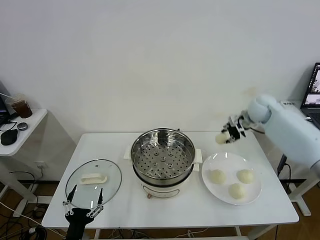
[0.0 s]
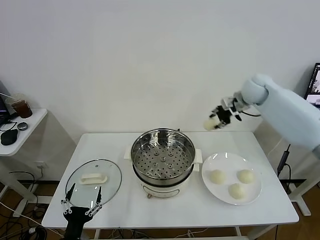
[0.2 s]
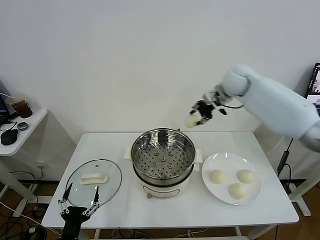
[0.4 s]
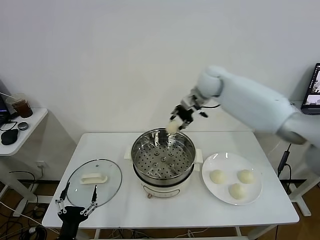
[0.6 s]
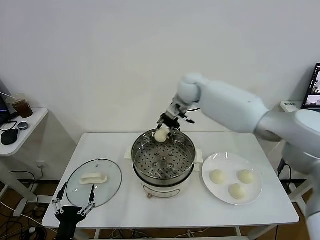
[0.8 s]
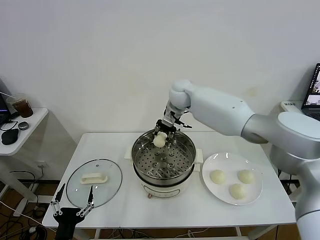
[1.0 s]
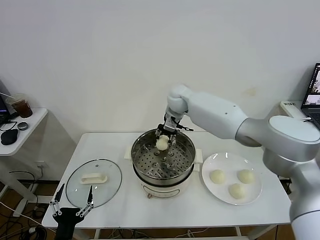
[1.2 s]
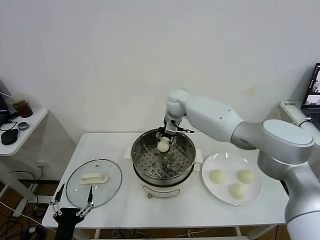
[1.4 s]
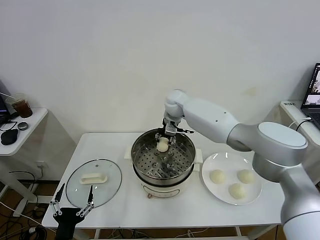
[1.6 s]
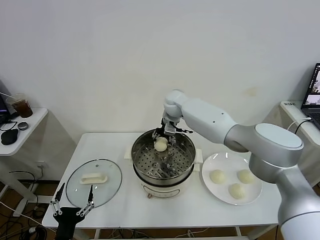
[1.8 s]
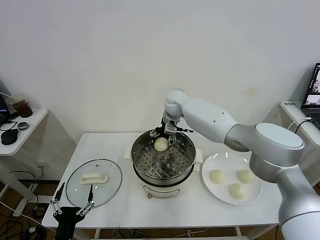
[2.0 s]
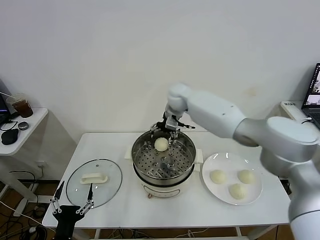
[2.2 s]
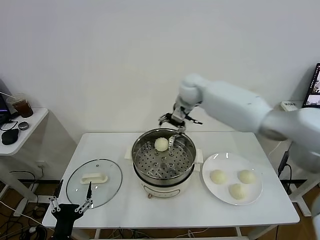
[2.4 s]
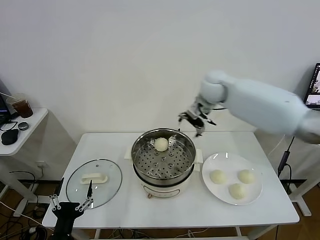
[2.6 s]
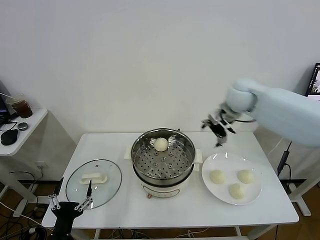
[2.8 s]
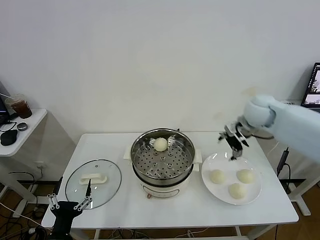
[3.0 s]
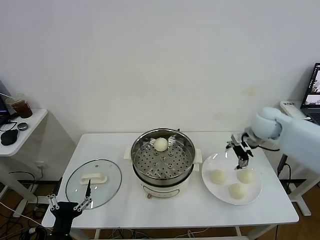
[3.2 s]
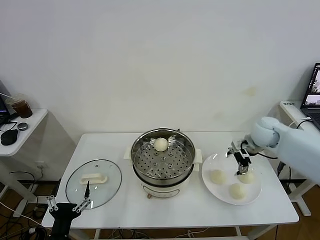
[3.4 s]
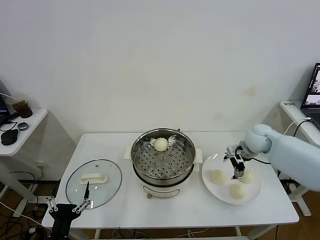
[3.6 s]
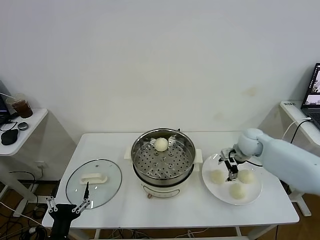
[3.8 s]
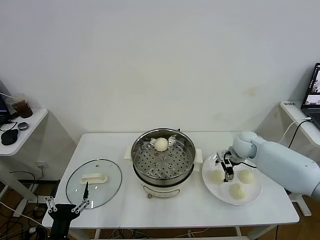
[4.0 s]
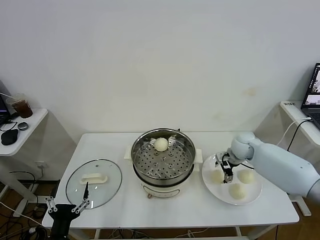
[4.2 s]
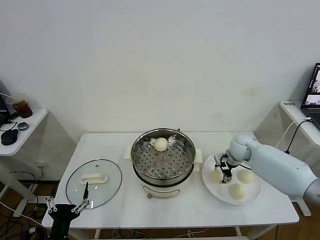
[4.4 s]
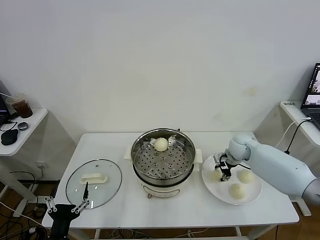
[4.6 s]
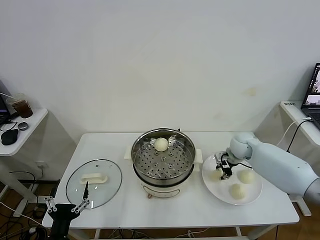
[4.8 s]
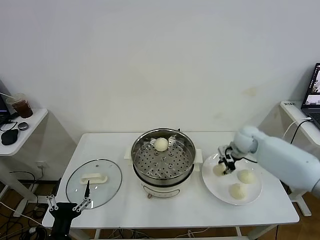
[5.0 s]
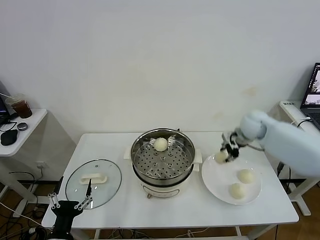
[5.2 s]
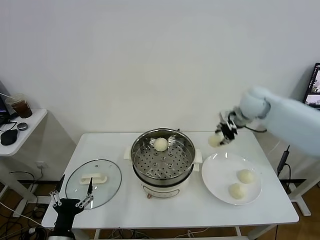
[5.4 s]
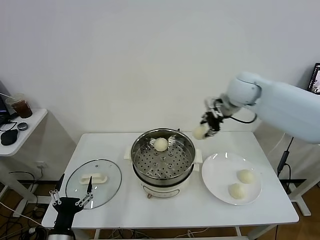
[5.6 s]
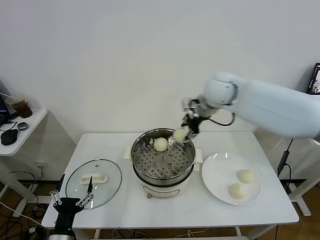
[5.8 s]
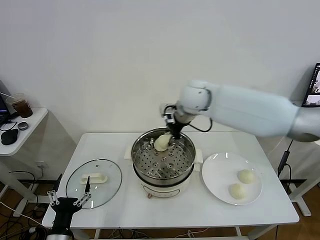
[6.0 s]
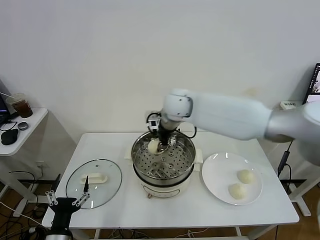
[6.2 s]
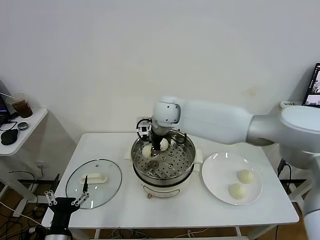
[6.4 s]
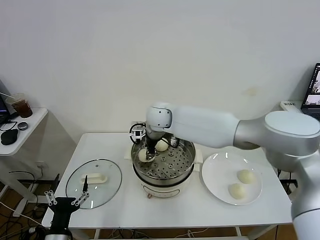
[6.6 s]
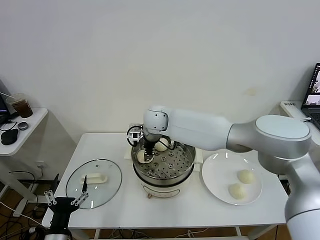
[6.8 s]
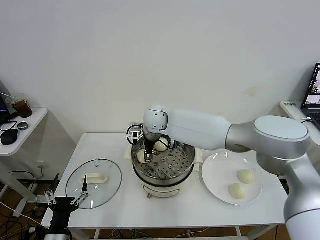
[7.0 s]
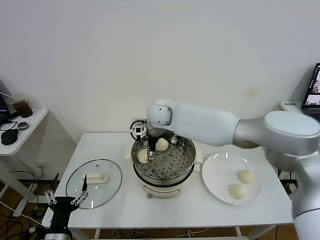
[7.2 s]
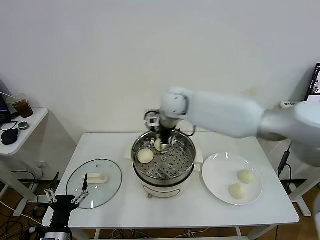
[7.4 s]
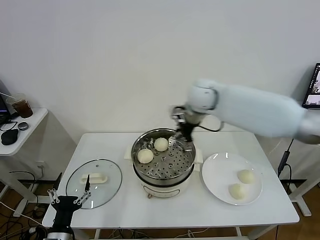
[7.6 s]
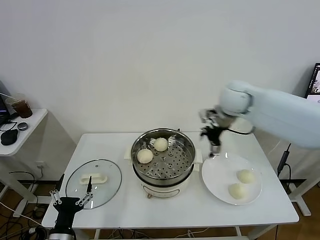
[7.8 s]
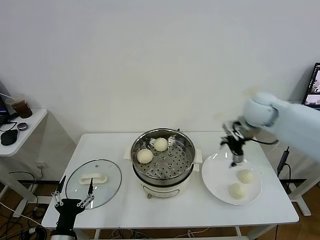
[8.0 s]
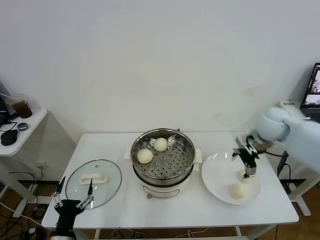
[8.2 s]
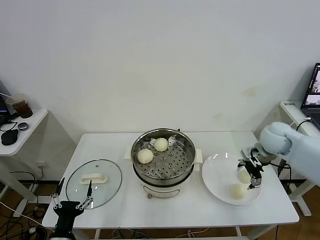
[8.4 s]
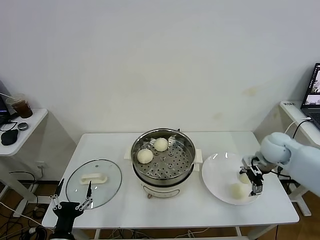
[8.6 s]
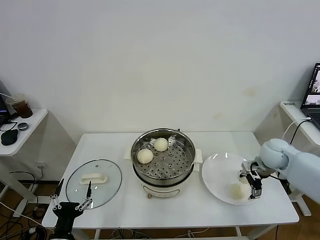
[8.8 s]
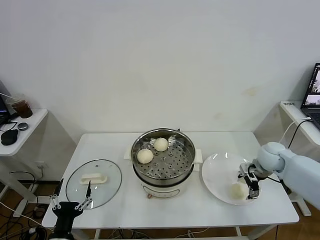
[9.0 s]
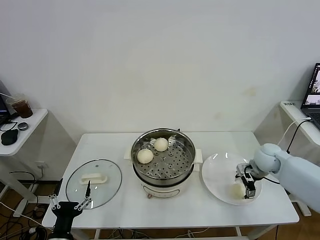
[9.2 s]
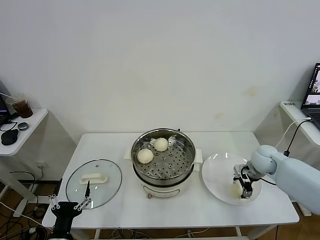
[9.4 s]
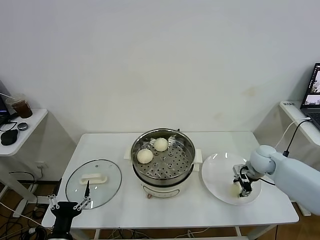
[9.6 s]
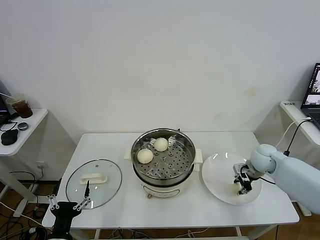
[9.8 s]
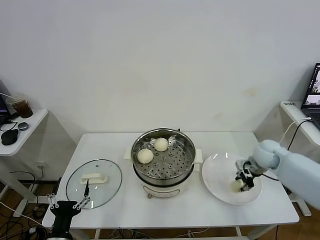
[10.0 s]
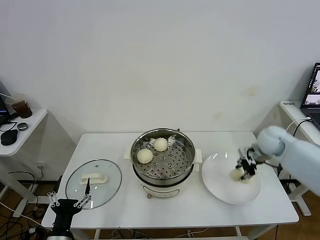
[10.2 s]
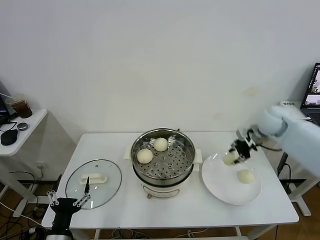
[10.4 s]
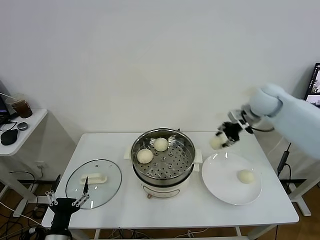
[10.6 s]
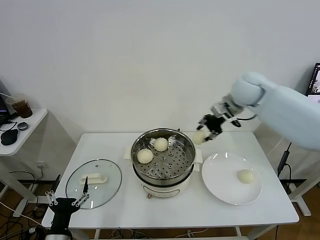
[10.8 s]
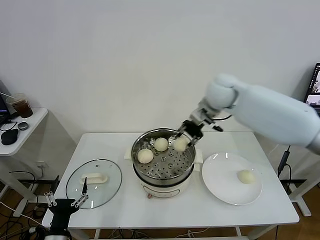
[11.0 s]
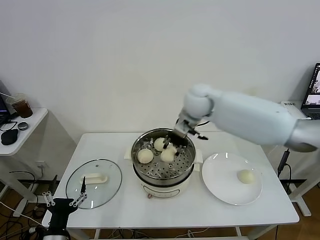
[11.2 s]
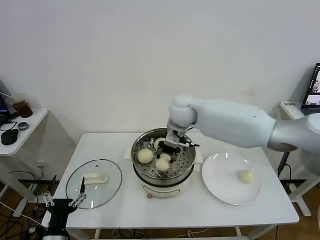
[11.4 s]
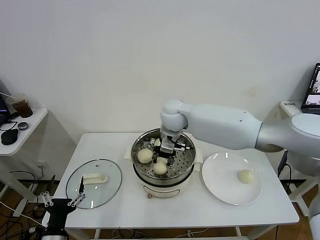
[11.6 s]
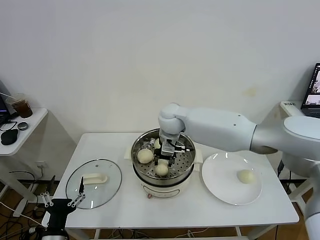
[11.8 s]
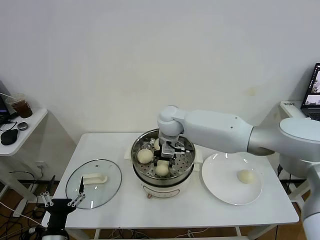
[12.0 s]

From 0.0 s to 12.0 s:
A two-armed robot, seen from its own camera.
Task of the whole recording: take steamed baozi put them in steamer.
Step, from 0.0 s to 2.2 s: Place the baozi on the steamer with right gripper.
Step, from 2.4 s to 4.6 s: Grasp the baozi in the plate with right gripper.
Step, from 4.8 s to 7.0 s: Place the baozi on the steamer with right gripper.
Step, from 7.4 s to 9.6 s: Grasp the baozi in the plate with right gripper.
From 0.0 s to 1.6 s: The right gripper shifts about 30 cm to the left.
From 1.6 s to 3.0 s: The right gripper heads to the right and backward, covering approximately 30 cm, and opens its fingers.
From 3.0 s to 4.4 s: The right gripper moves downward, approximately 15 cm.
From 4.4 s to 6.0 s: The right gripper shifts about 30 cm upward and to the left, and closes up.
From 6.0 s to 7.6 s: The right gripper reaches roughly 10 cm to the left, then returns, and opens its fingers.
From 7.6 s to 9.0 s: The right gripper shifts roughly 30 cm to the right and downward.
From 9.0 s to 10.4 s: The right gripper moves upward and forward, roughly 15 cm, and closes its fingers.
From 10.4 s to 12.0 s: The right gripper heads to the left, covering approximately 35 cm.

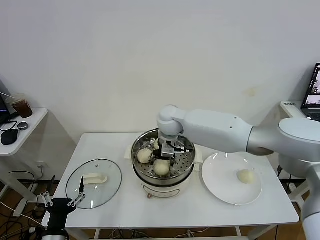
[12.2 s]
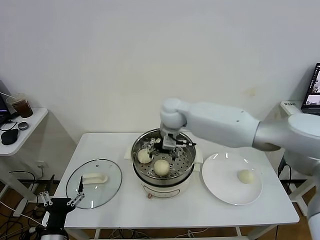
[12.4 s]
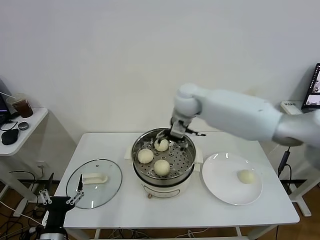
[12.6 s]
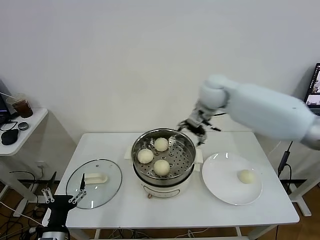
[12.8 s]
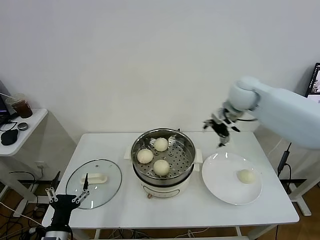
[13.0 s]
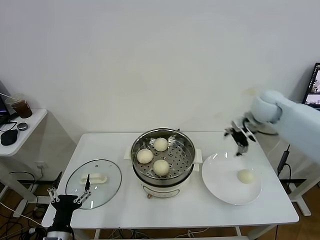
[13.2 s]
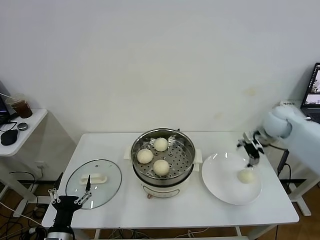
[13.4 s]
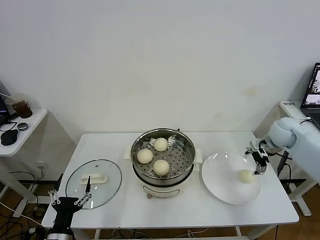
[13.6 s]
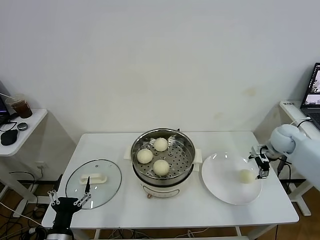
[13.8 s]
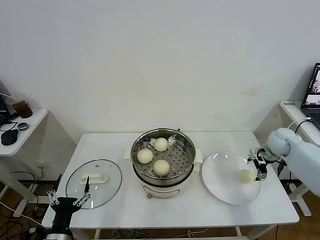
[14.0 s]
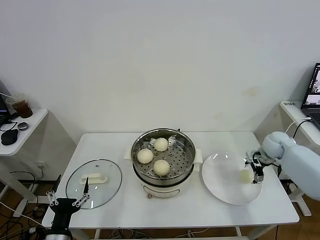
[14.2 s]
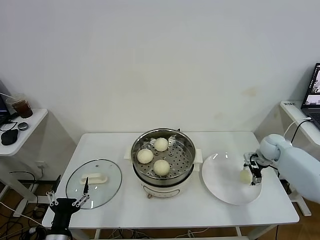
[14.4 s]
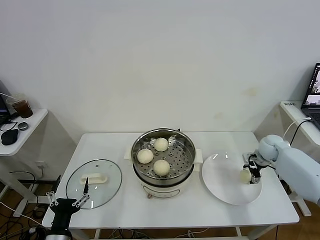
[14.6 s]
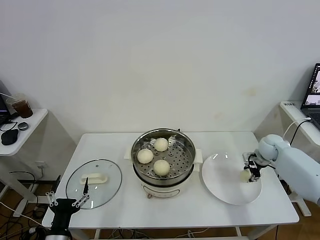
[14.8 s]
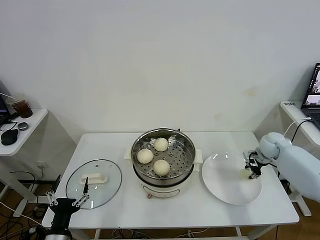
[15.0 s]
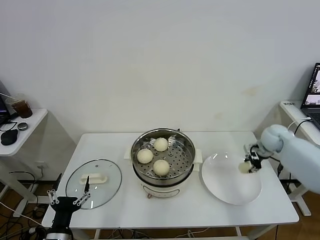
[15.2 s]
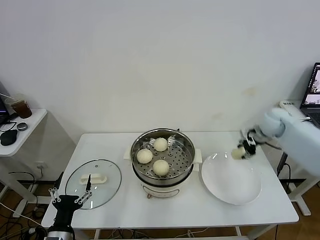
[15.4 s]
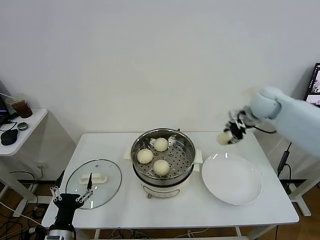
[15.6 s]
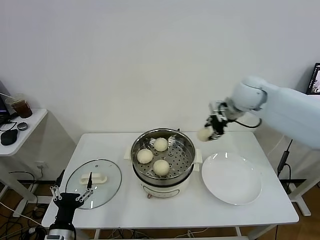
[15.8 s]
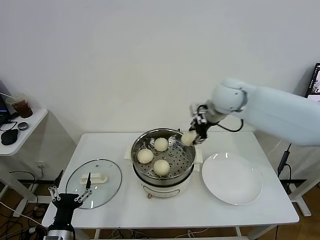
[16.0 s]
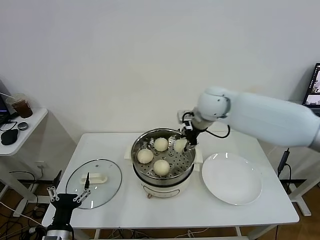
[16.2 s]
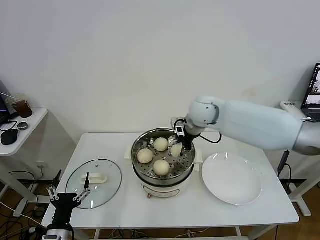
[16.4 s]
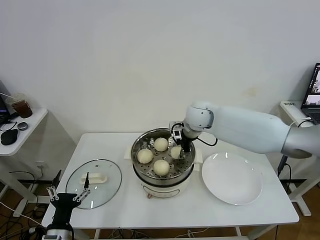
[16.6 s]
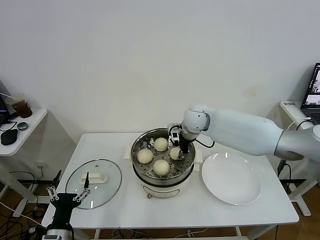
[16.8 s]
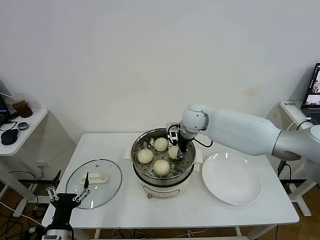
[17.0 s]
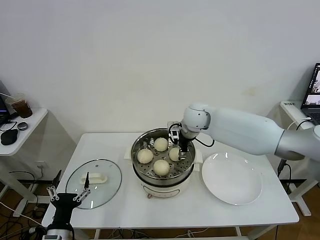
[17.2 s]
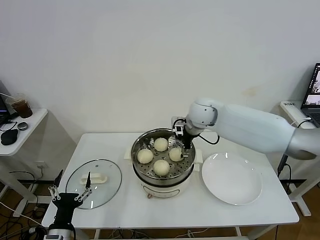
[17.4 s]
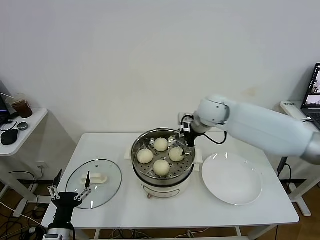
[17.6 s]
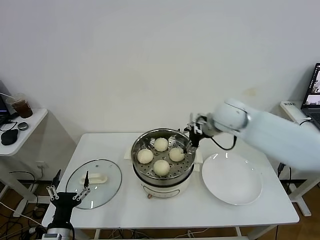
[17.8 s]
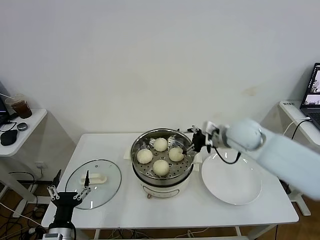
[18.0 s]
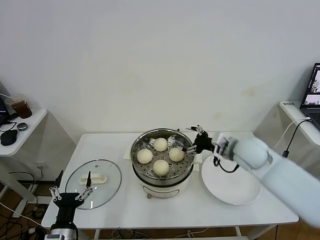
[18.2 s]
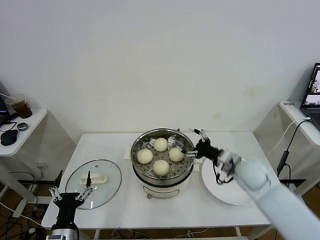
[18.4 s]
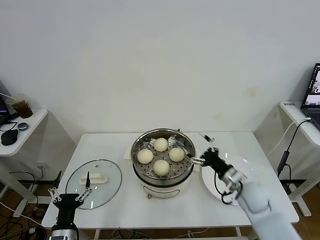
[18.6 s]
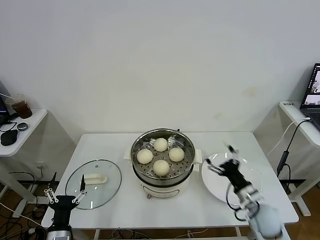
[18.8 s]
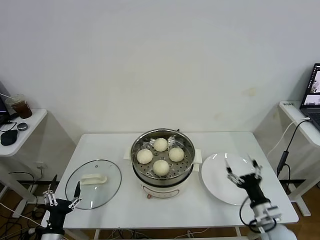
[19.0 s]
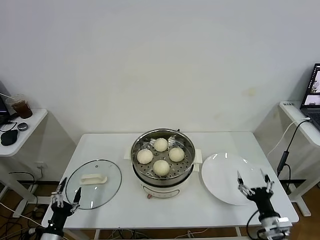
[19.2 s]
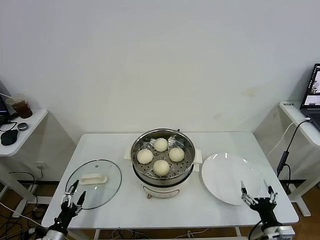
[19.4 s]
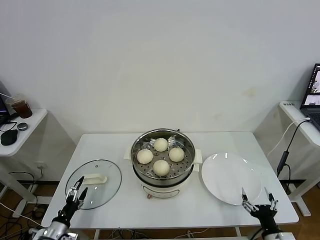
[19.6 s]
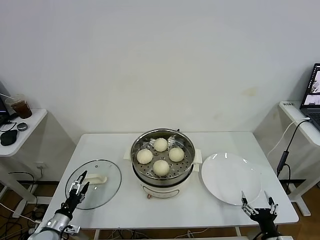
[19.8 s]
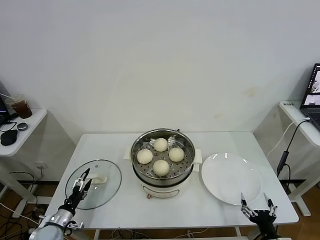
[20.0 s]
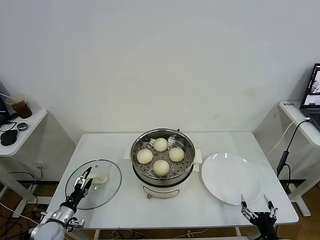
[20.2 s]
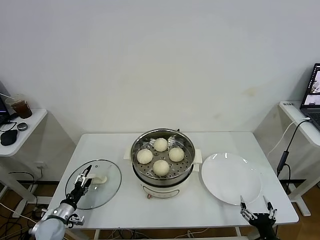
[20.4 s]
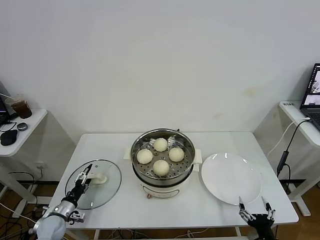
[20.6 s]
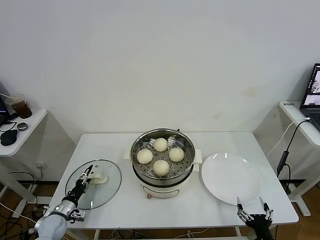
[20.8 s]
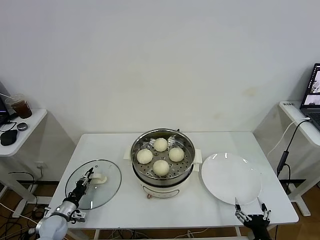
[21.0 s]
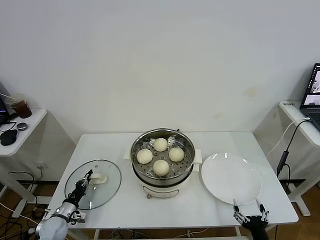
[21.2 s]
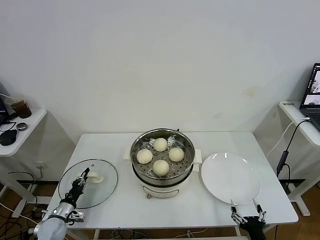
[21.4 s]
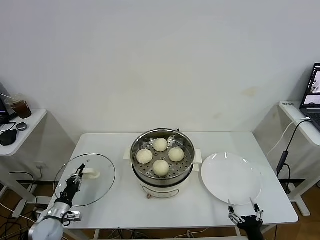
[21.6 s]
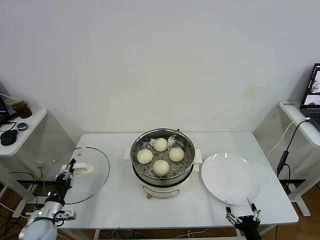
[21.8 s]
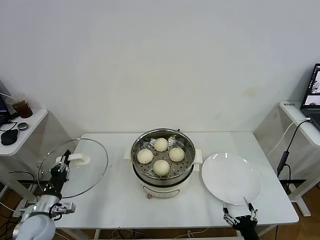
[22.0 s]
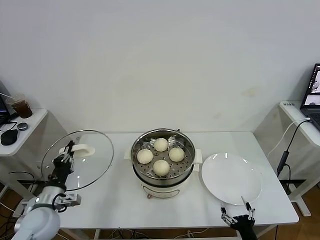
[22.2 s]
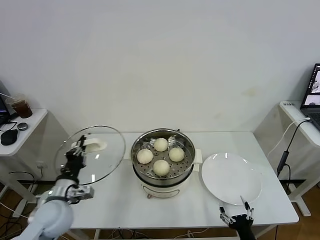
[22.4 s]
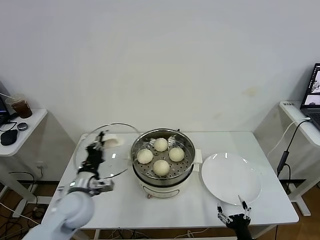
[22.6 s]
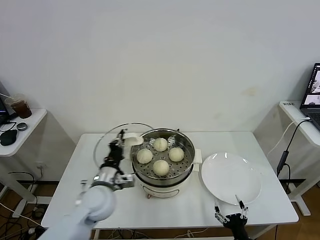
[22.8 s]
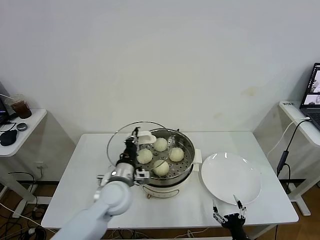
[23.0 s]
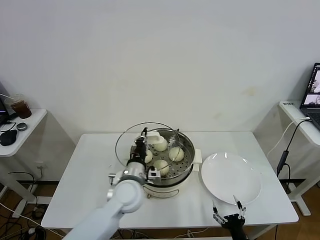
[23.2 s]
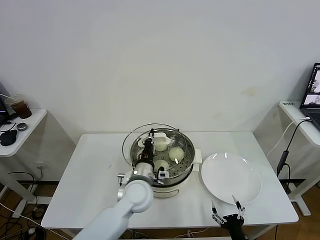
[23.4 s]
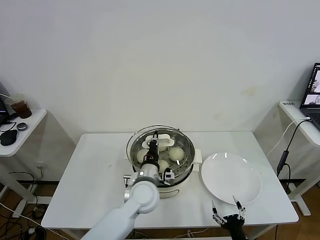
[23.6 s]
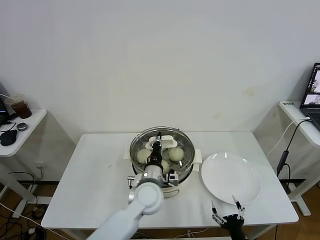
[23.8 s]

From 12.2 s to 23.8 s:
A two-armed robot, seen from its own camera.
Task of the whole recording: take steamed baozi put them in steamer.
Step, from 12.6 s to 14.8 s: Grasp the baozi in the plate with right gripper.
Step, from 15.0 s to 17.4 s: Place the baozi on the steamer with right gripper.
Step, from 17.6 s to 21.4 s: Grasp the pot lid with left gripper.
From 12.2 s to 13.6 s: The right gripper shifts some 40 cm to the right.
From 13.6 s to 15.0 s: The right gripper heads downward, covering about 10 cm, and closes up.
From 15.0 s to 16.6 s: The right gripper shifts some 35 cm to the left and upward.
From 16.6 s to 18.0 s: The right gripper travels to the right and backward by roughly 15 cm, and opens.
From 18.0 s to 19.4 s: The right gripper goes approximately 40 cm backward, downward and to the right. Meanwhile the left gripper shifts about 10 cm to the left and downward.
From 19.4 s to 21.0 s: The left gripper goes some 15 cm forward, and closes. The right gripper changes place by approximately 5 cm.
From 21.0 s to 22.4 s: The left gripper heads upward and to the right, covering some 25 cm, and closes up.
From 22.4 s to 23.8 s: The left gripper shifts approximately 25 cm to the right.
